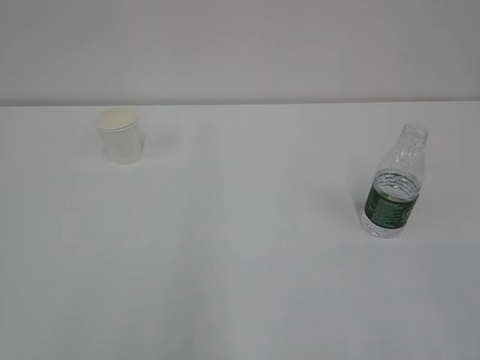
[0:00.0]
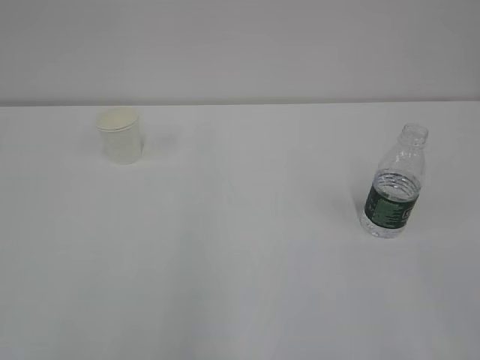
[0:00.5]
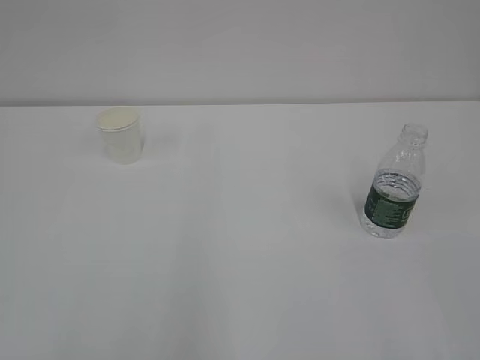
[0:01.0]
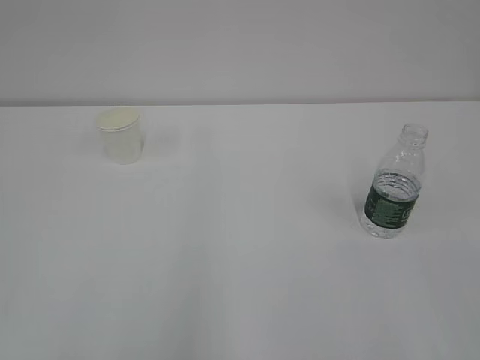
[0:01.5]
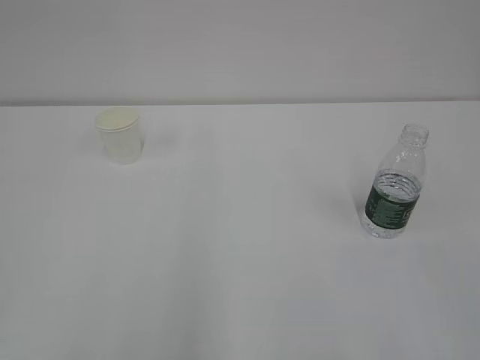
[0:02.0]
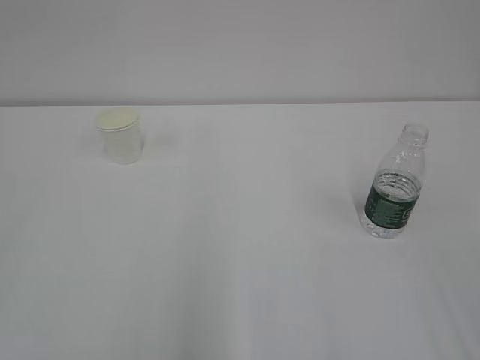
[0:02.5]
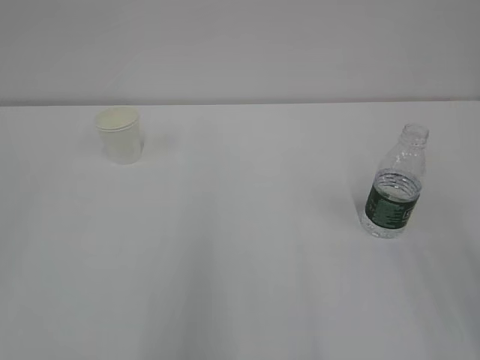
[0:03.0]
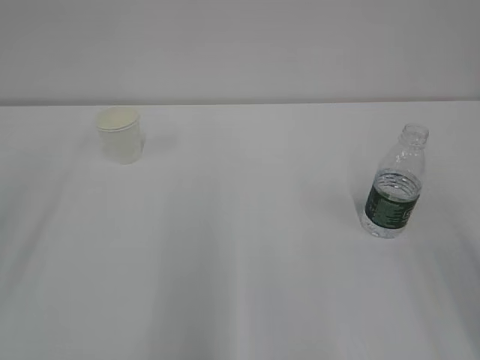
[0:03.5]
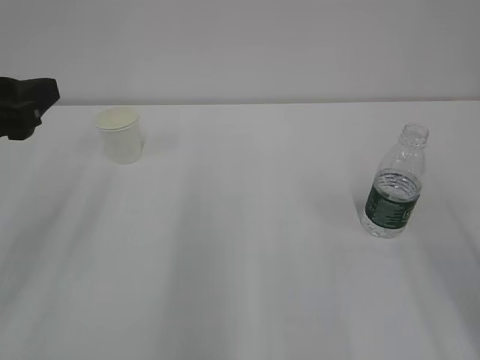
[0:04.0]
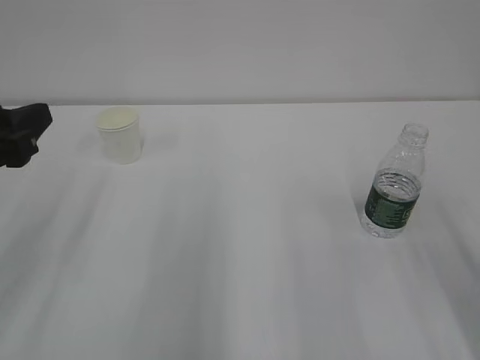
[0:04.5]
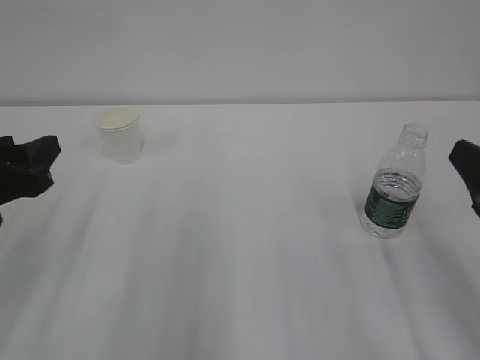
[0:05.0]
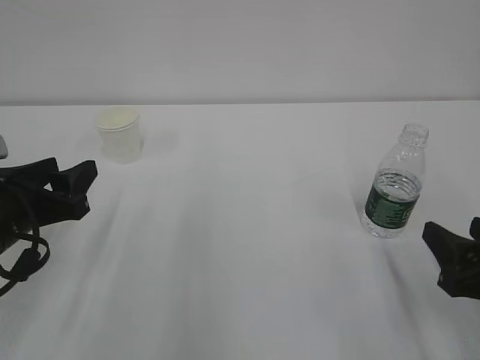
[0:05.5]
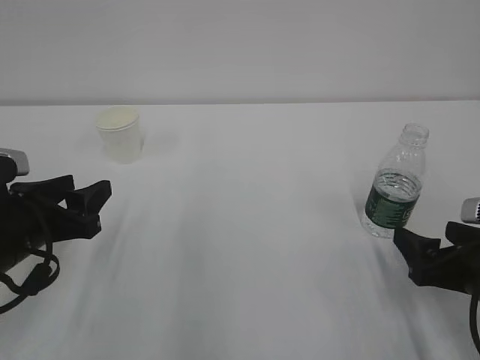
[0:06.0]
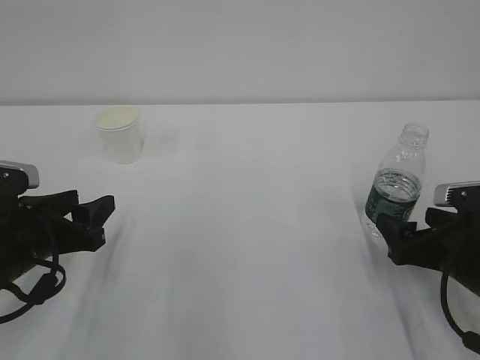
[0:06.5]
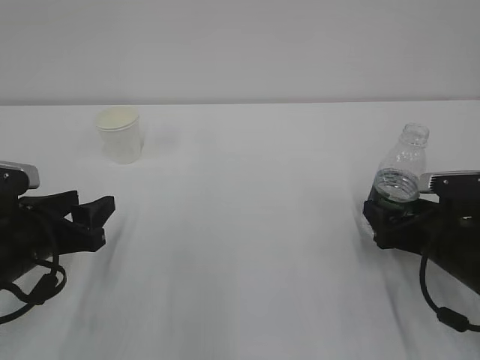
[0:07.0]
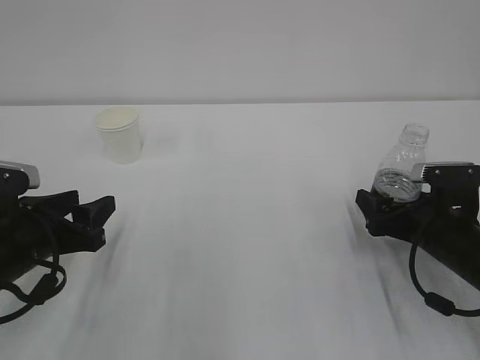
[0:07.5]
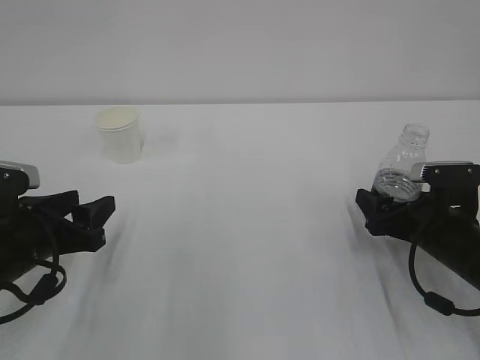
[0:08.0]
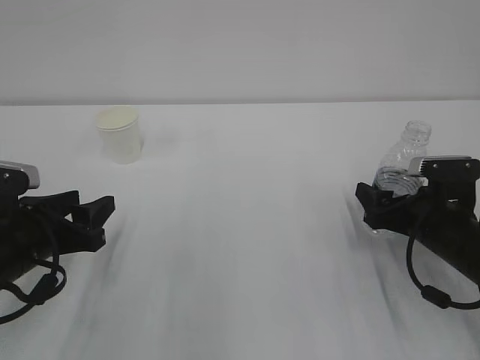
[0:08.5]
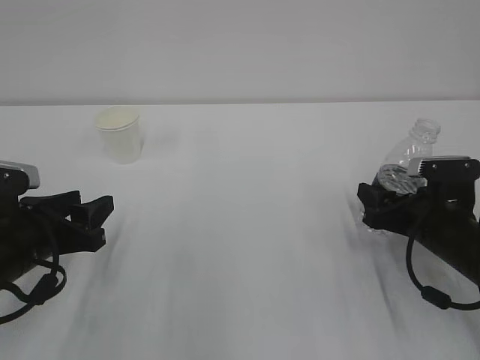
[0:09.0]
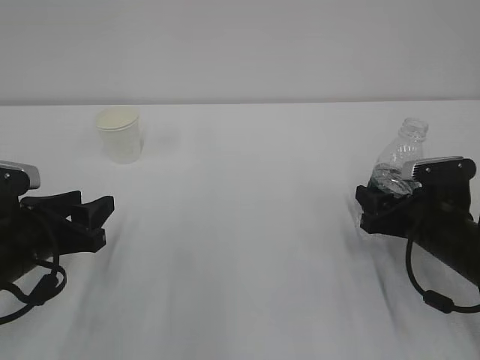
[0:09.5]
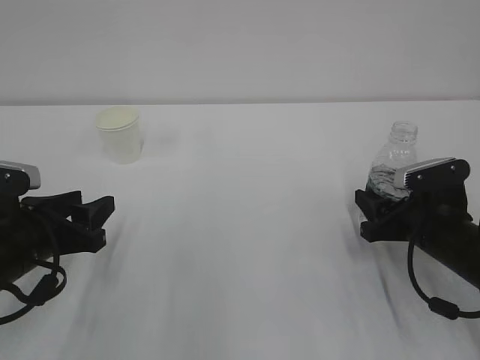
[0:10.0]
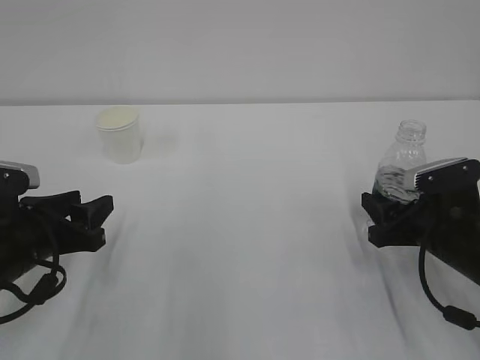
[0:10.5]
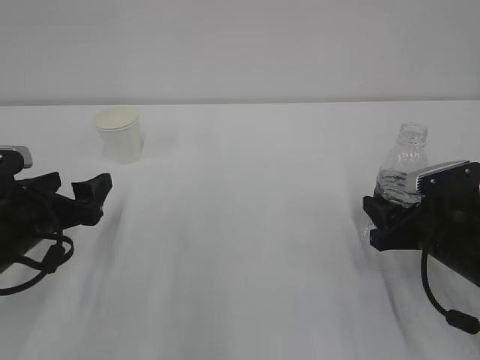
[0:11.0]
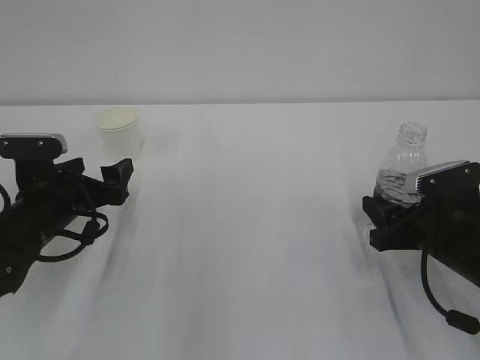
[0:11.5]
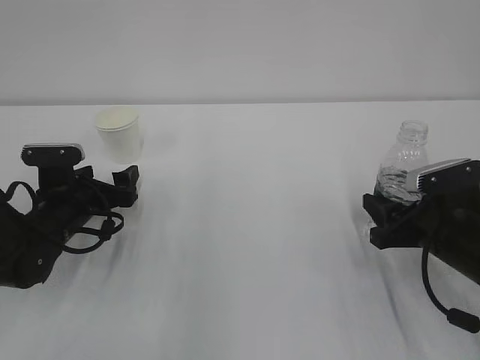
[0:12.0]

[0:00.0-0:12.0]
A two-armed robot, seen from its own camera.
0:02.0 to 0:04.0: The left gripper travels forward by some 25 cm.
0:04.0 to 0:06.0: Both grippers travel together downward, some 15 cm. The right gripper opens.
0:06.0 to 0:08.0: The right gripper shifts approximately 10 cm forward.
0:08.0 to 0:10.0: The right gripper closes its fingers.
0:10.0 to 0:12.0: The left gripper shifts approximately 10 cm forward and downward, and opens its fingers.

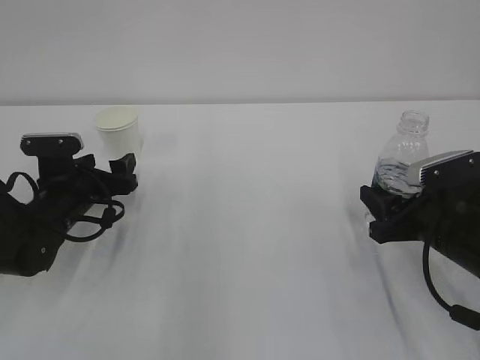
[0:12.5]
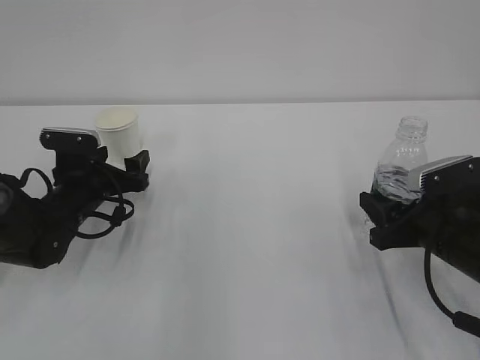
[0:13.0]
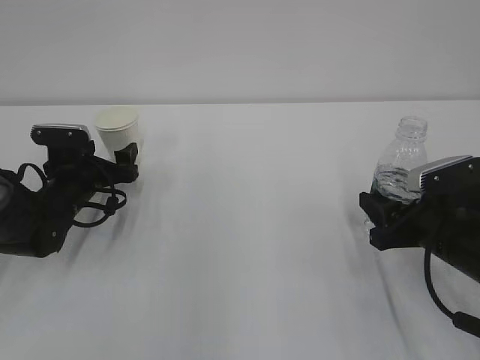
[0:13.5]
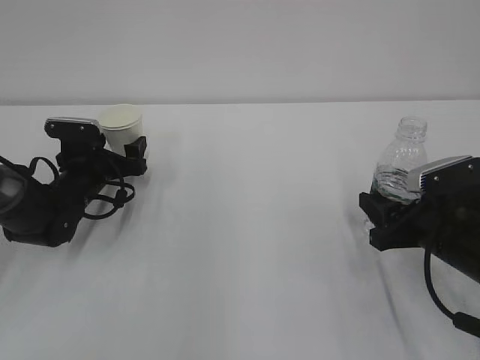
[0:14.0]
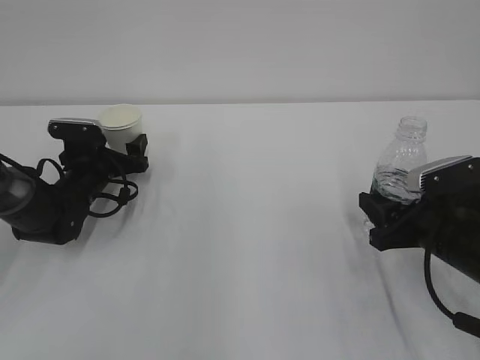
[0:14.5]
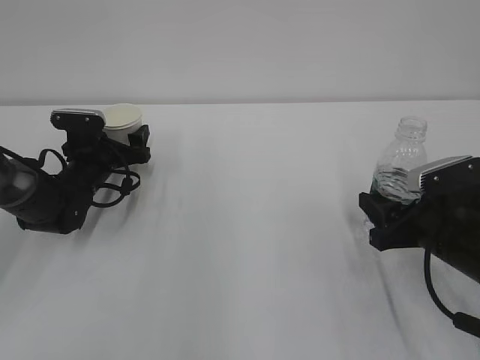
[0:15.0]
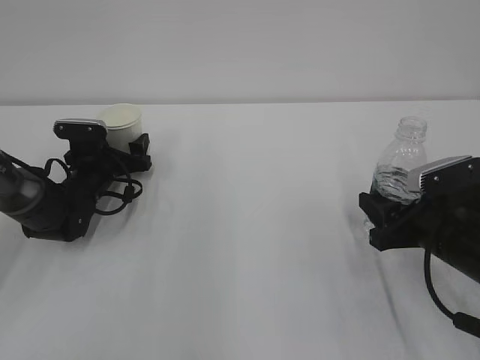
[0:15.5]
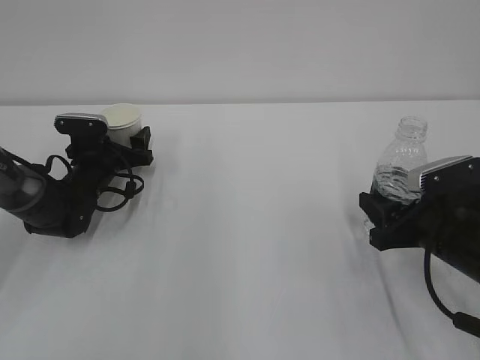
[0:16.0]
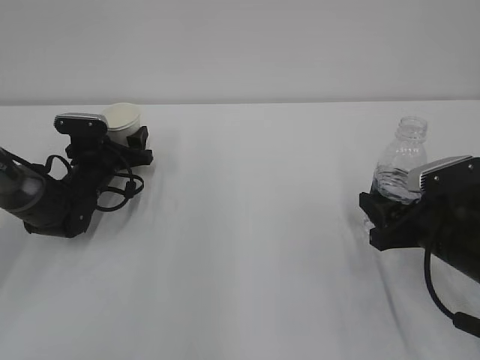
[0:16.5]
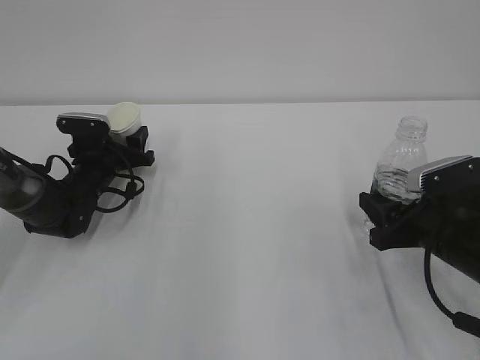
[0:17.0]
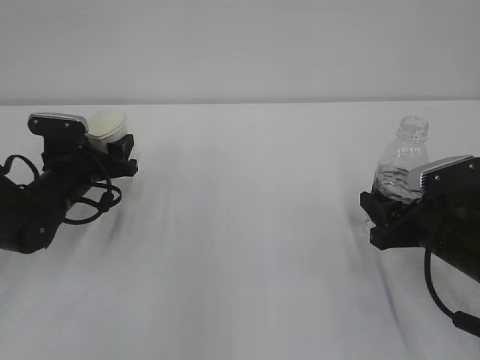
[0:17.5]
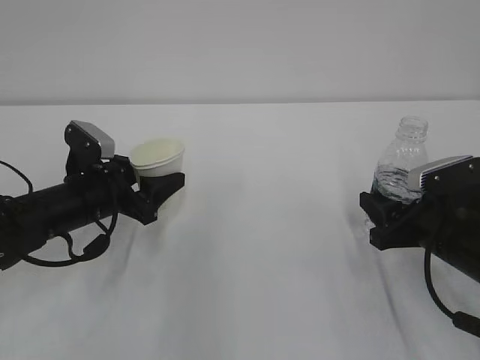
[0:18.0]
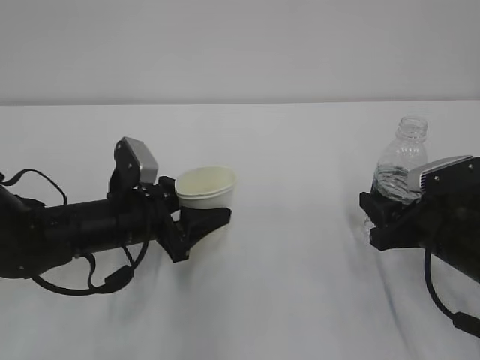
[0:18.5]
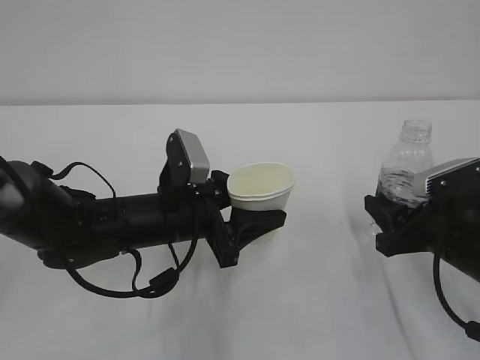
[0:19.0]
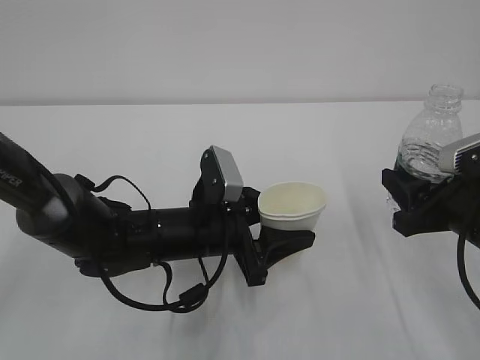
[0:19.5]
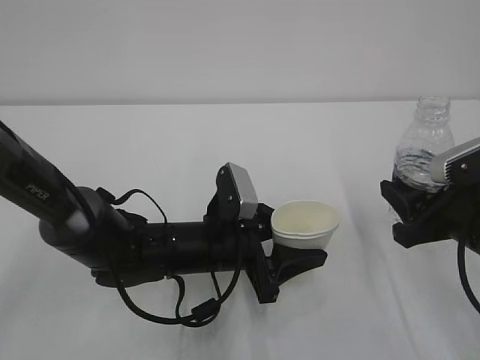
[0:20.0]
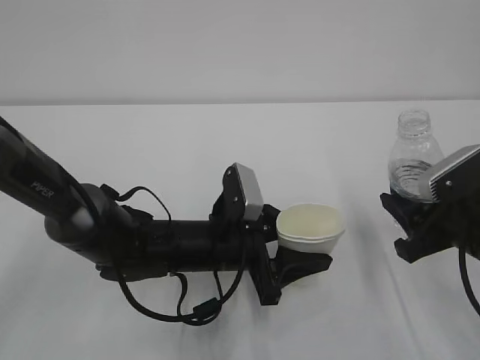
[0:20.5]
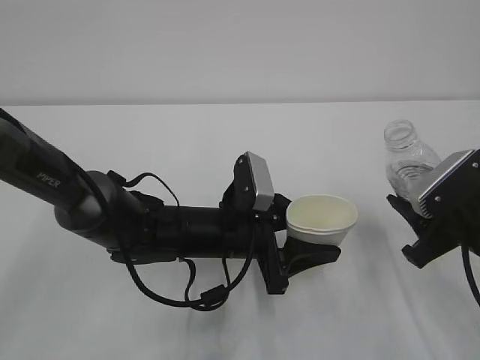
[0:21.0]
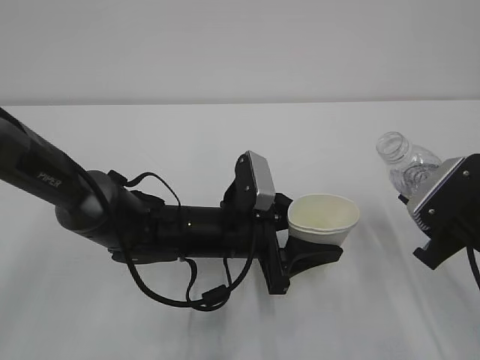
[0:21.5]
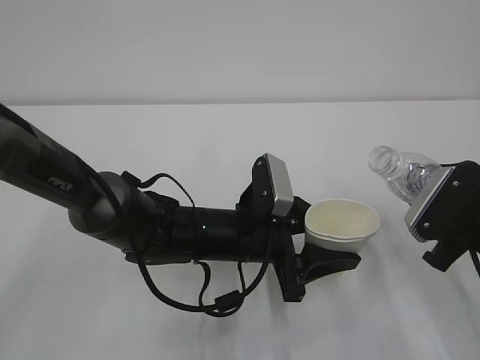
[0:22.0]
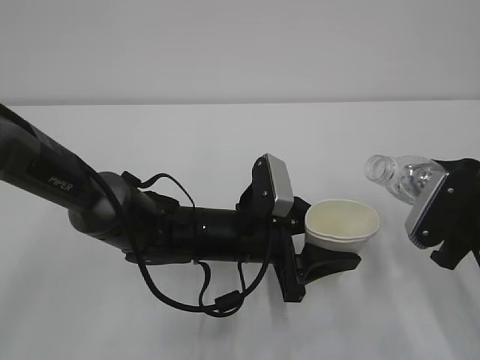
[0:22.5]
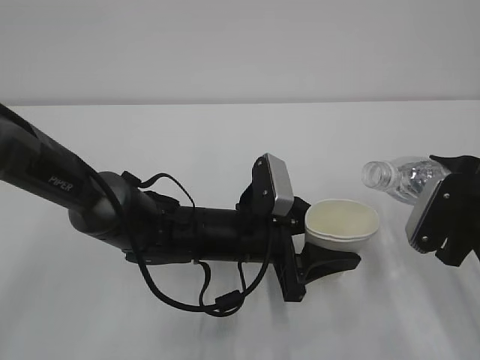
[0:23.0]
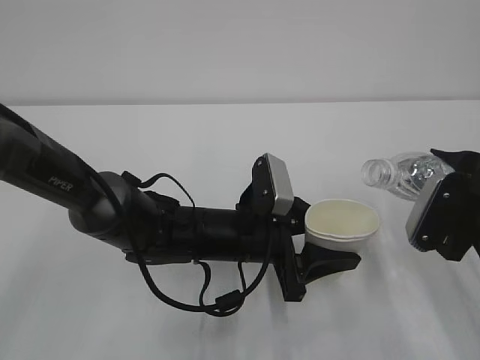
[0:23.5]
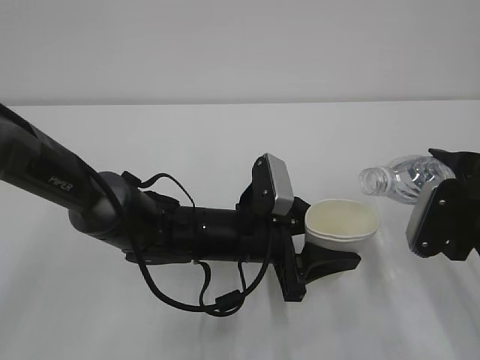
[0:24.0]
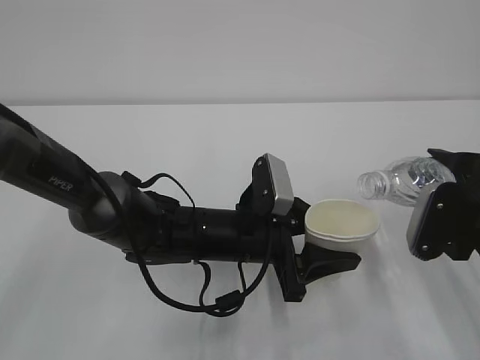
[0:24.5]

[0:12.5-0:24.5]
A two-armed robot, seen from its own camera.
0:12.5 to 0:14.5: The left gripper shifts about 5 cm forward.
0:14.5 to 0:16.5: The left gripper closes its fingers.
0:16.5 to 0:18.5: The left gripper is displaced backward and to the right by some 15 cm.
0:18.5 to 0:20.5: The right gripper moves roughly 5 cm; the left gripper travels to the right by about 10 cm.
0:22.5 to 0:24.5: There are only small adjustments of the grippers.

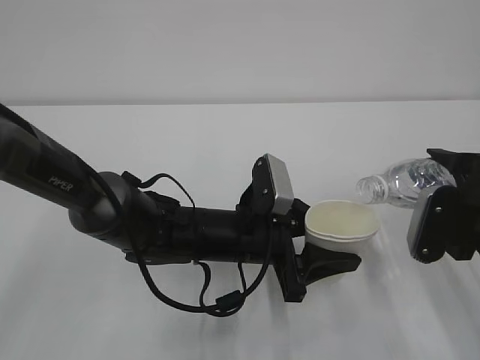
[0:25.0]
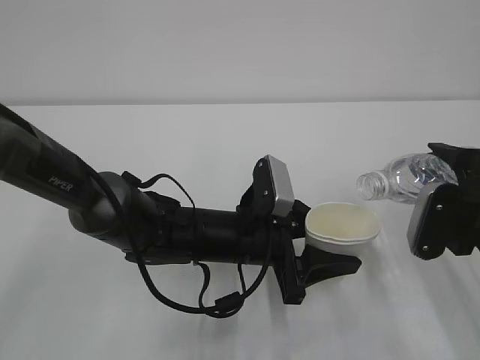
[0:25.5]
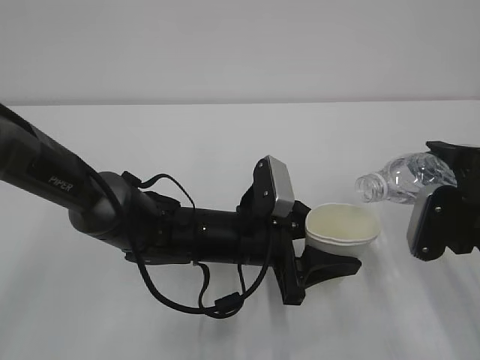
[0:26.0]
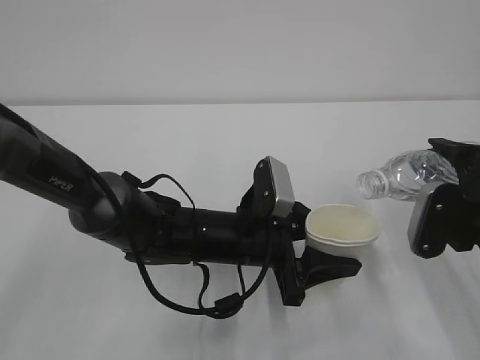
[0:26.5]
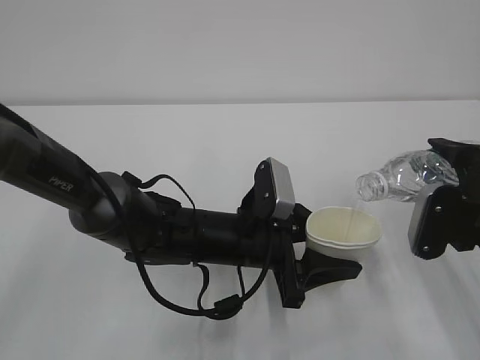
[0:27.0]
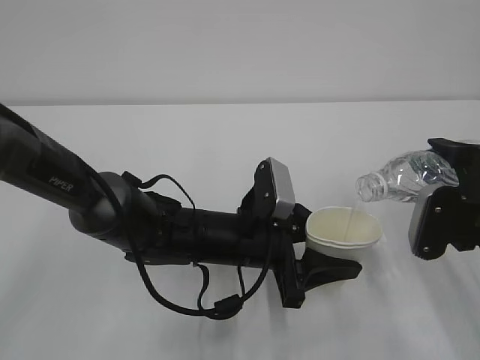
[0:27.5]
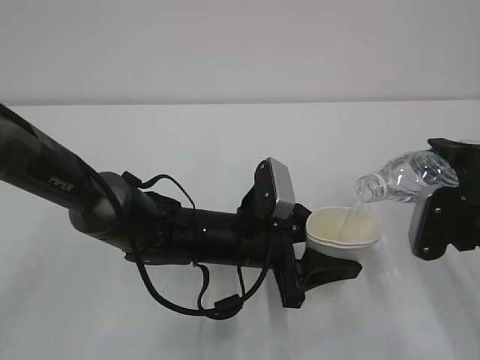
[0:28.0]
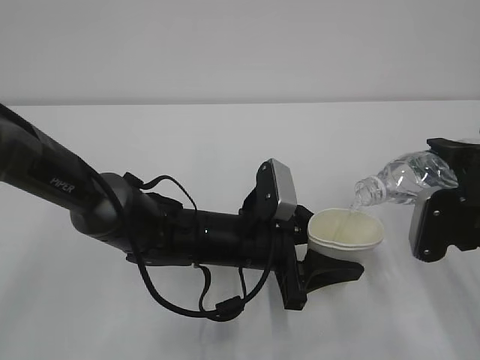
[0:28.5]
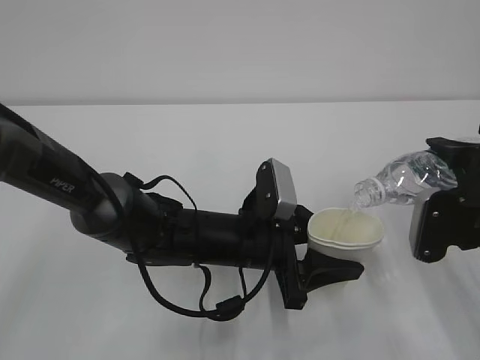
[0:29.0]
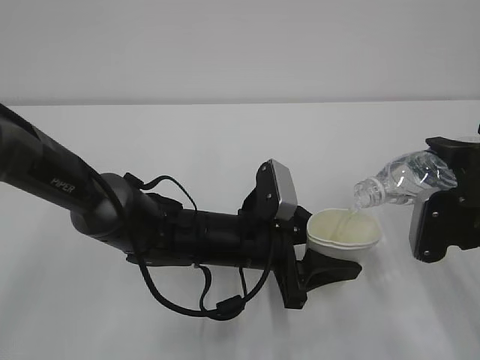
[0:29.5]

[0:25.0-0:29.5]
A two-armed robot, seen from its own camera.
0:25.0 to 0:27.0: The grippers move only a little.
0:27.0 to 0:29.5: Both grippers stay about where they are.
